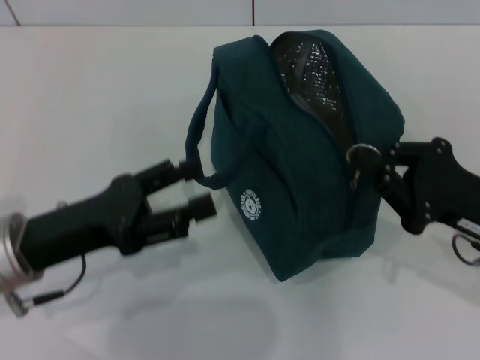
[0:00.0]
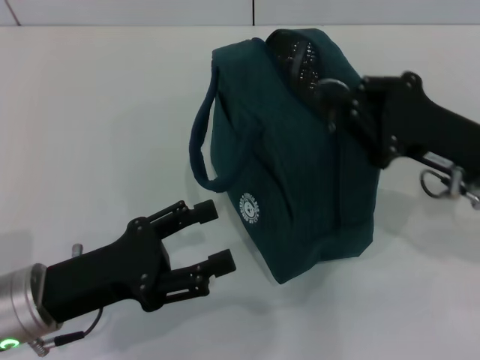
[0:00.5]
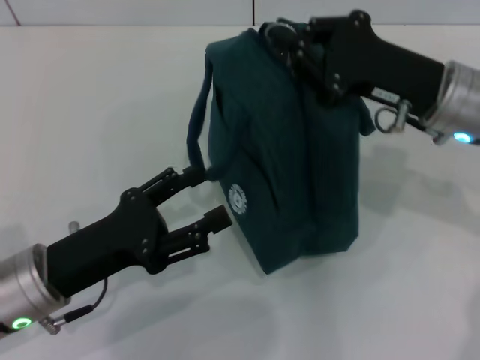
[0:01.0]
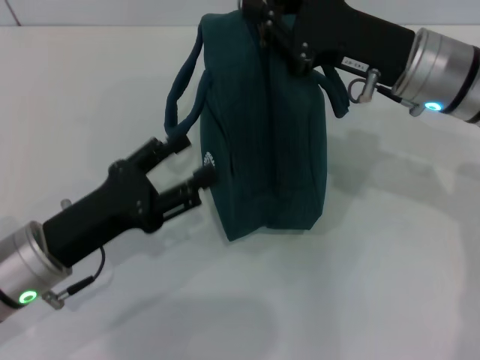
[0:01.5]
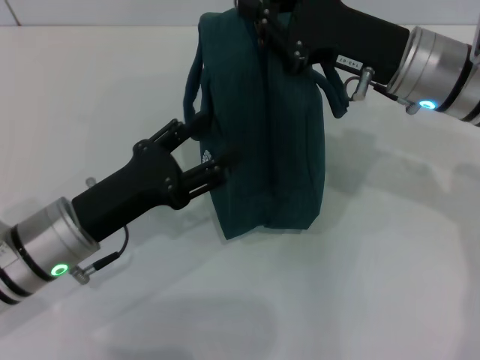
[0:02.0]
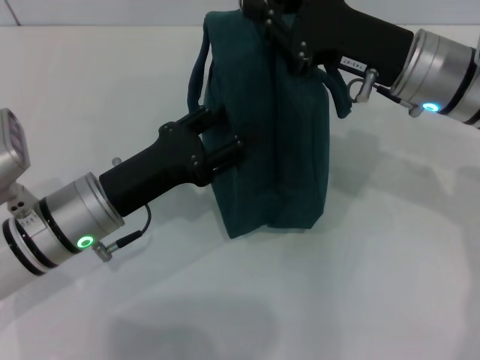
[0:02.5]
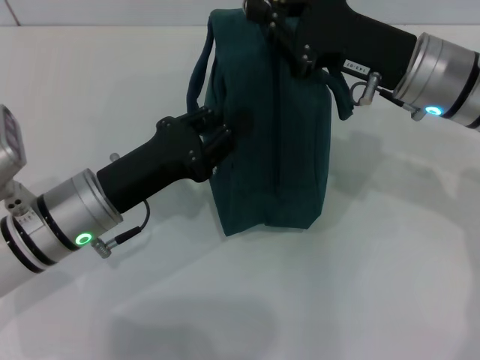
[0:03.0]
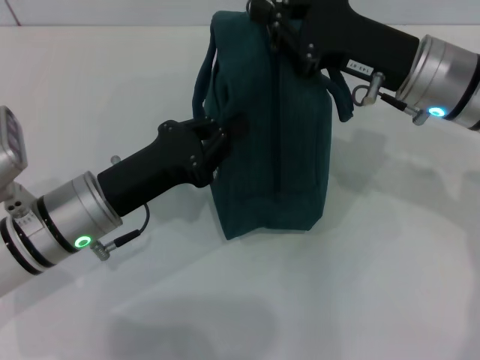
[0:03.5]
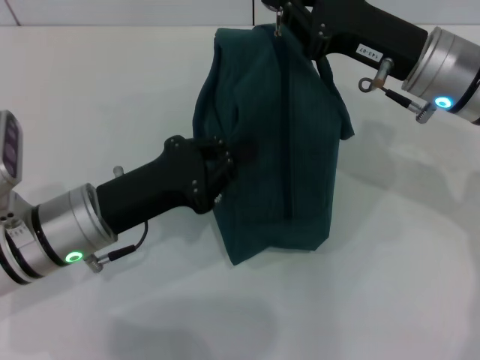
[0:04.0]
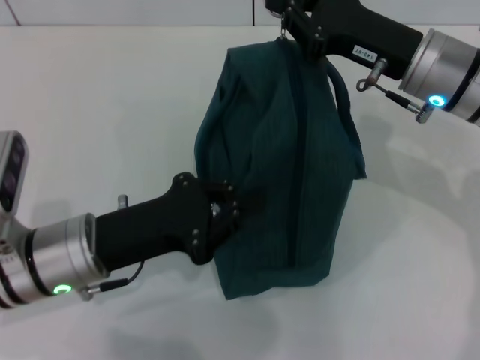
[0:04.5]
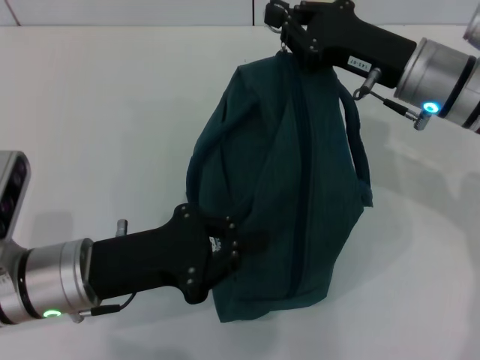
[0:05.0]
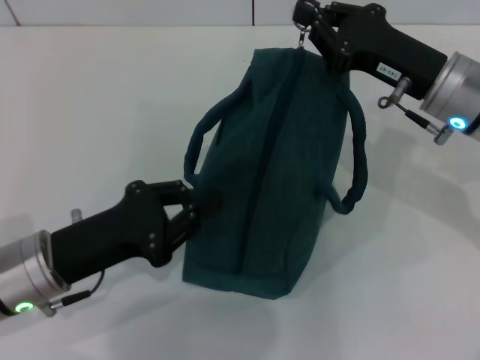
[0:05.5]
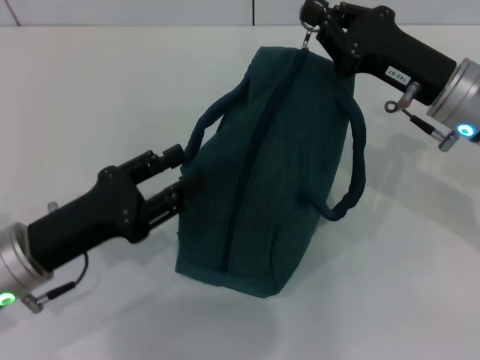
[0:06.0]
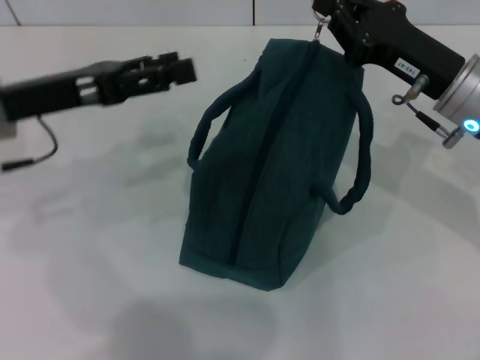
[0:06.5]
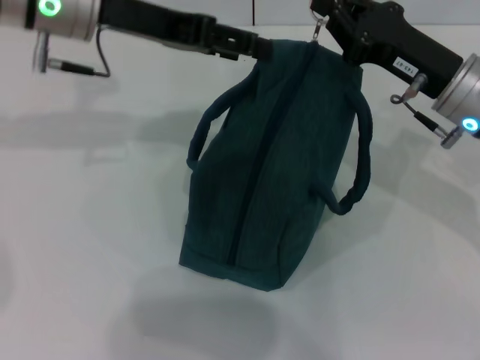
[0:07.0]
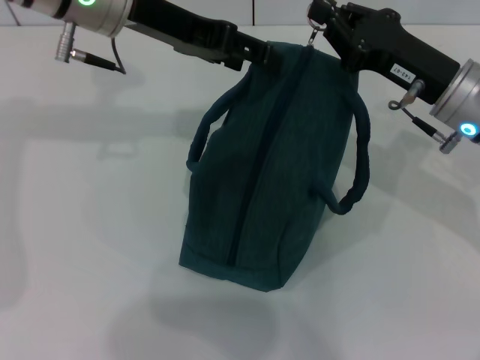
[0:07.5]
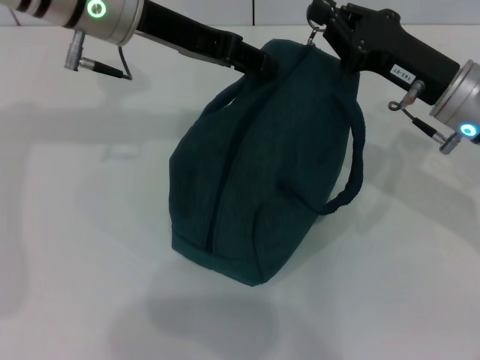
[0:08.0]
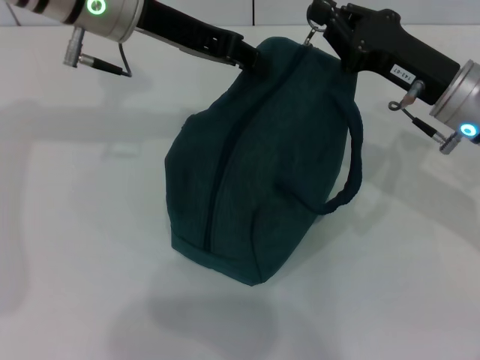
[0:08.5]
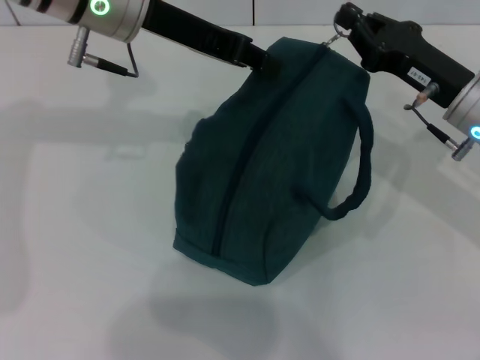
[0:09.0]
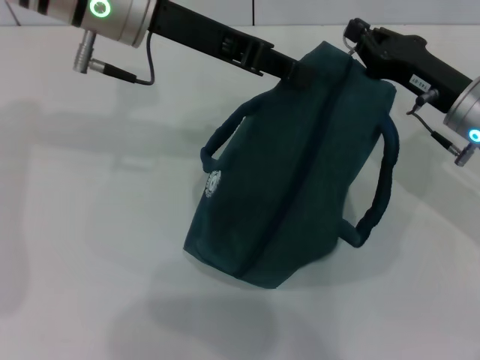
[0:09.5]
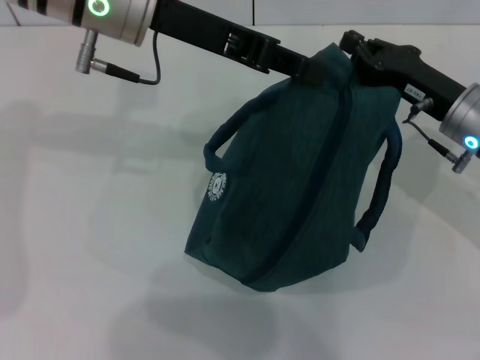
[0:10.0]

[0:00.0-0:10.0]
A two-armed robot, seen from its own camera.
0:00.0 to 0:02.0: The right gripper shifts roughly 15 cm forward, to the left and upward.
0:02.0 to 0:04.0: The left gripper closes.
0:04.0 to 0:06.0: The left gripper shifts about 5 cm to the left, and opens up.
0:06.0 to 0:08.0: The left gripper shifts roughly 25 cm forward, upward and to the right, and opens.
0:08.0 to 0:10.0: The left gripper closes up.

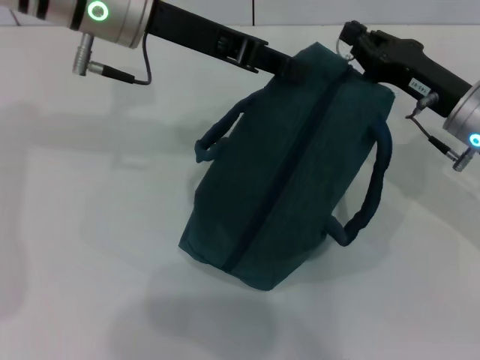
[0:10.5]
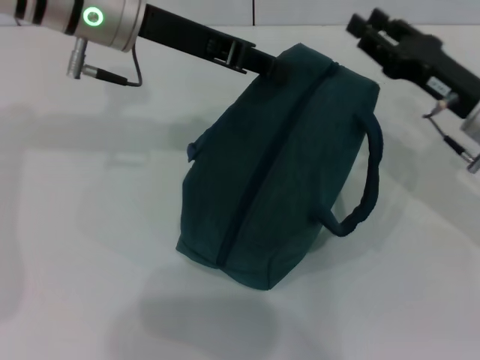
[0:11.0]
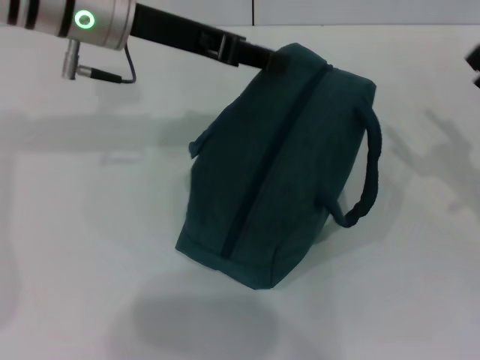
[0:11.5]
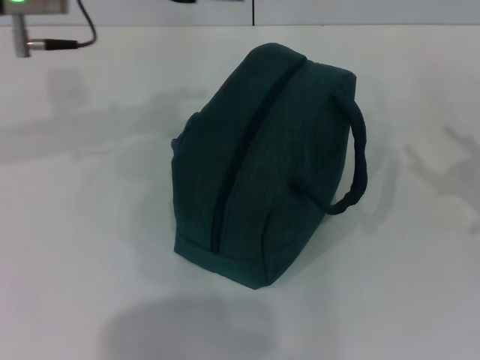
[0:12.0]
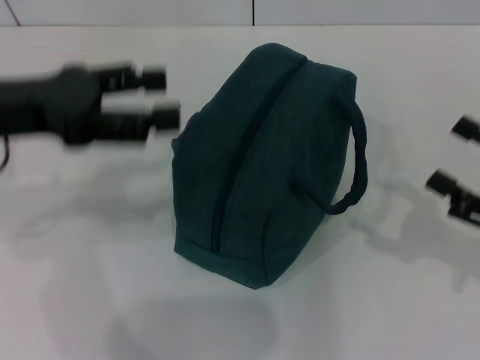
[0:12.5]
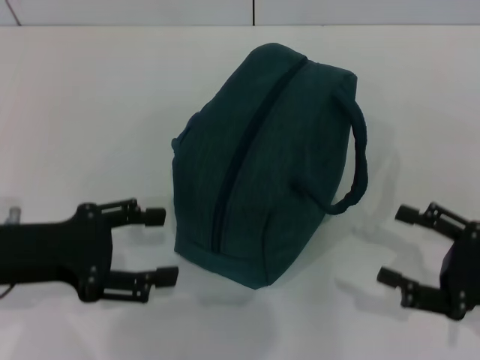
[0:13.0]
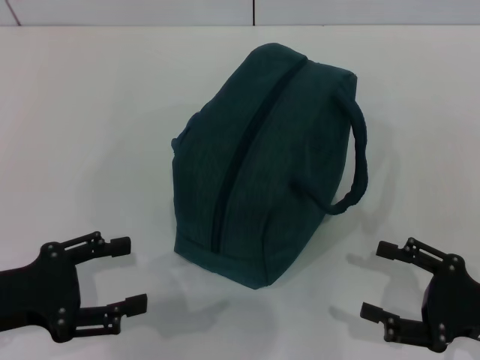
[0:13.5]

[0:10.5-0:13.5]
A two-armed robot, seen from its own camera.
0:10.5 to 0:12.0: The left gripper is displaced to the left by approximately 5 cm, and opens; the right gripper goes approximately 15 cm to the right and backward, and opens.
0:12.0 to 0:13.5: The left gripper moves backward, downward and to the left, about 25 cm. Meanwhile the right gripper travels backward and to the left by roughly 10 cm.
